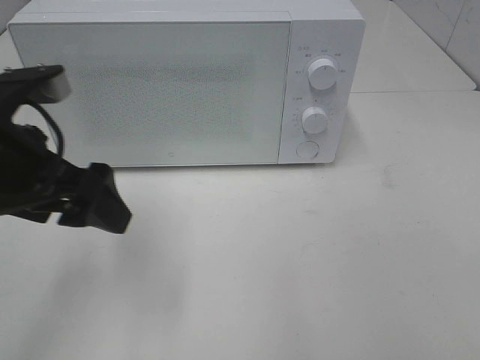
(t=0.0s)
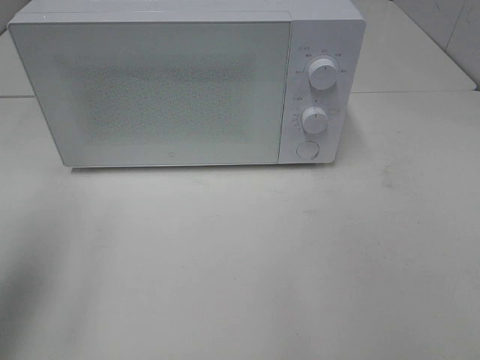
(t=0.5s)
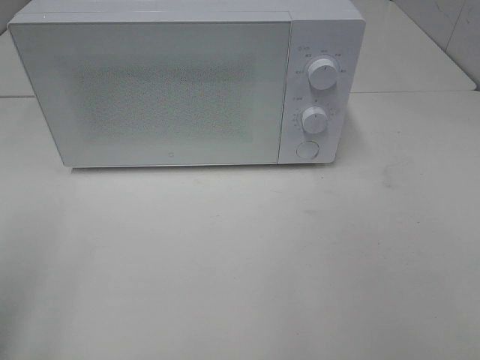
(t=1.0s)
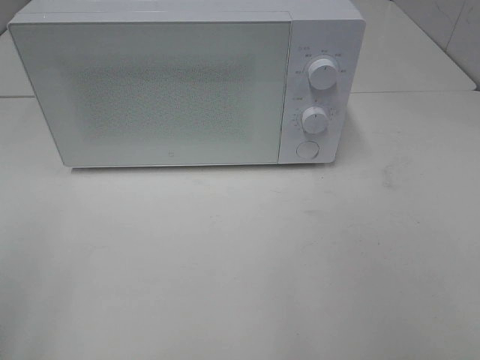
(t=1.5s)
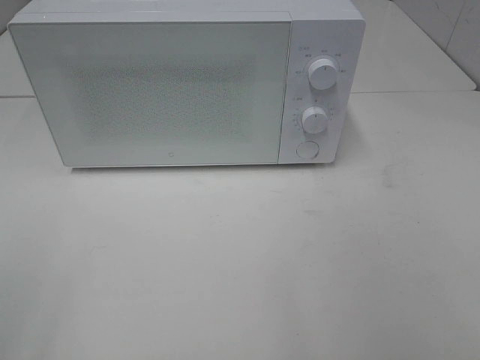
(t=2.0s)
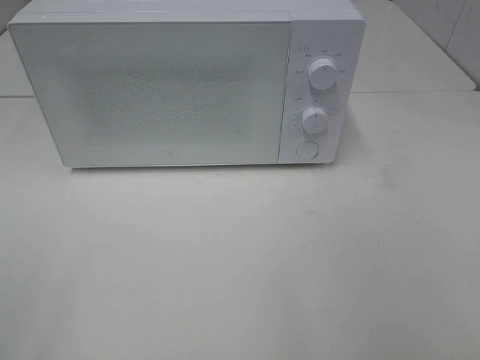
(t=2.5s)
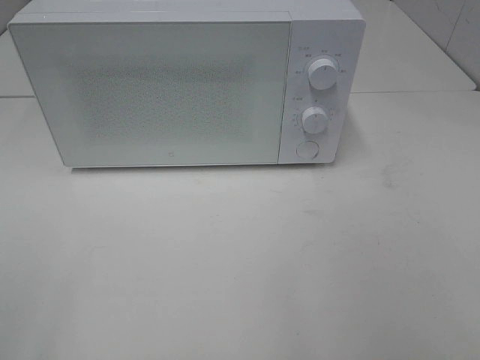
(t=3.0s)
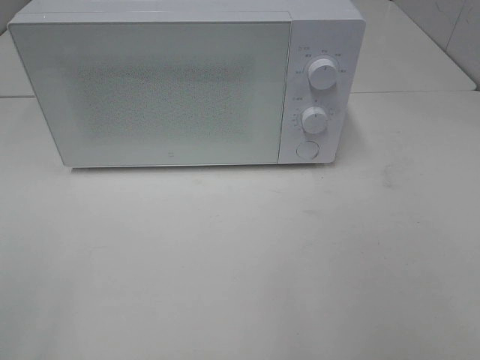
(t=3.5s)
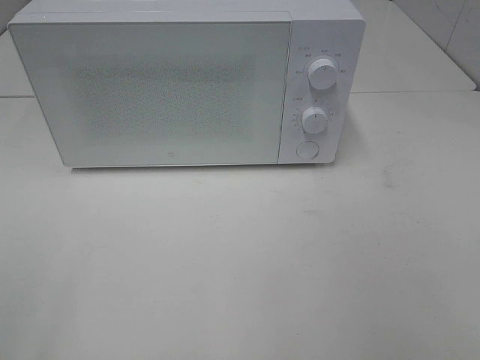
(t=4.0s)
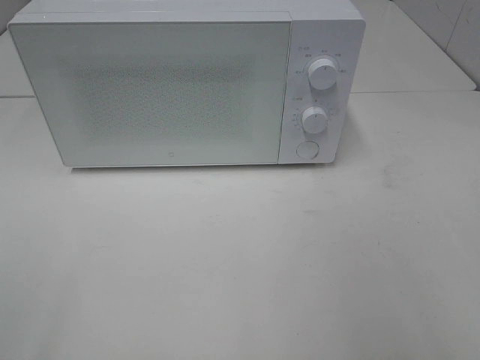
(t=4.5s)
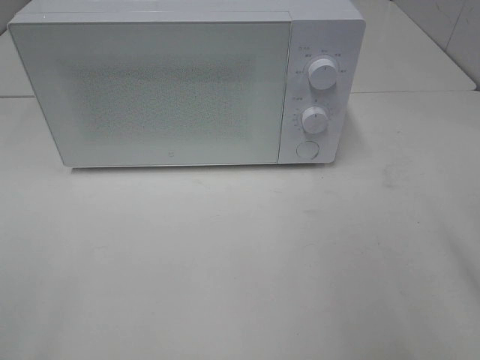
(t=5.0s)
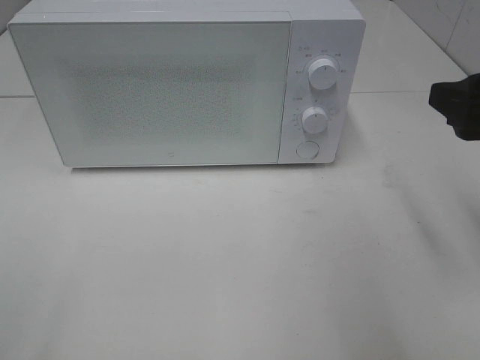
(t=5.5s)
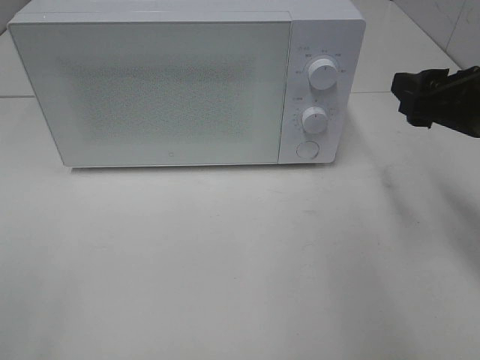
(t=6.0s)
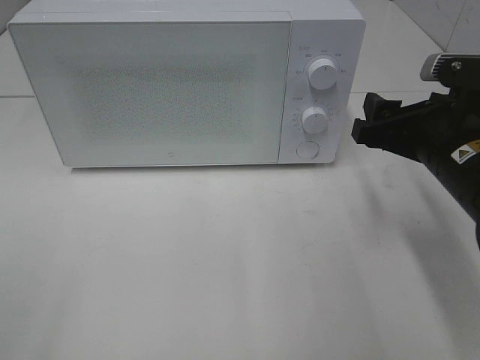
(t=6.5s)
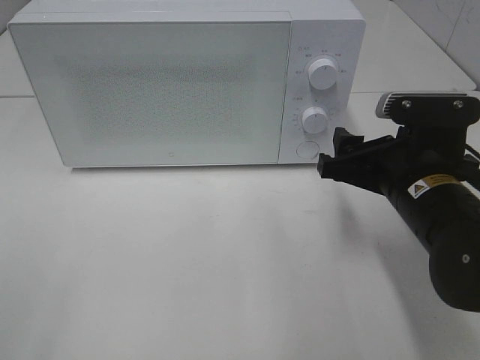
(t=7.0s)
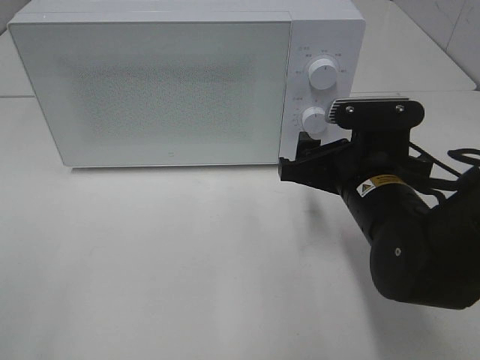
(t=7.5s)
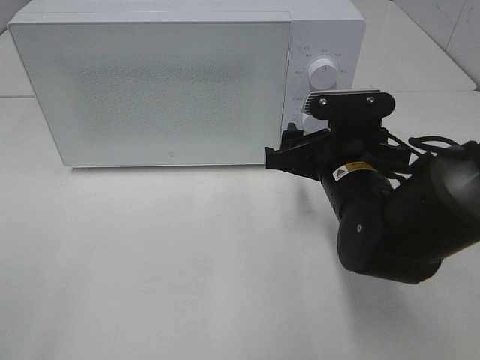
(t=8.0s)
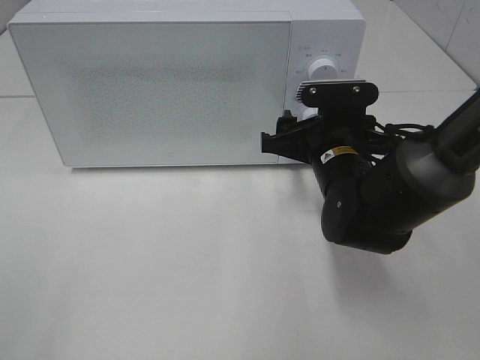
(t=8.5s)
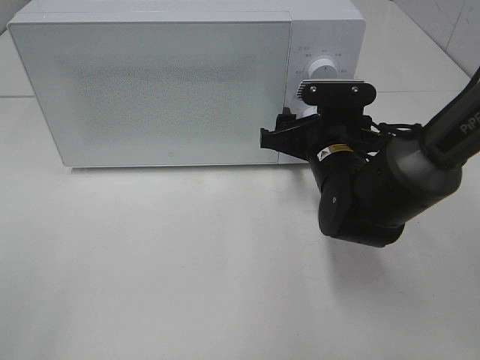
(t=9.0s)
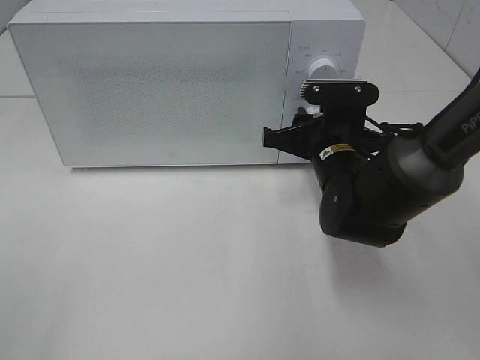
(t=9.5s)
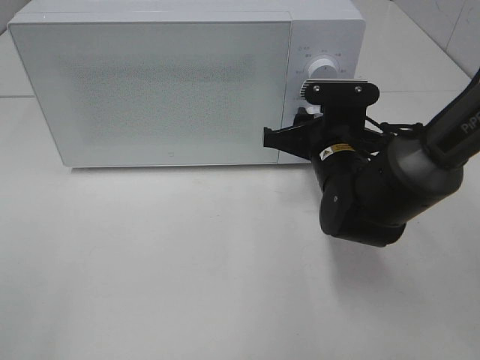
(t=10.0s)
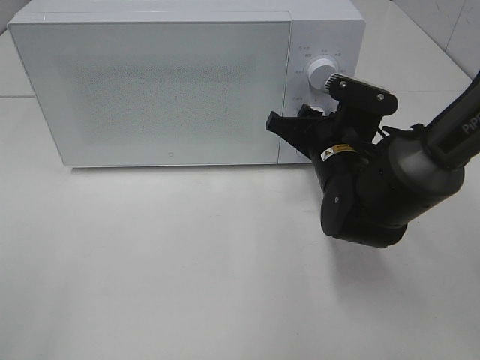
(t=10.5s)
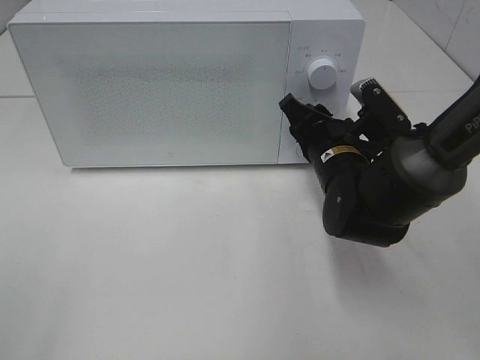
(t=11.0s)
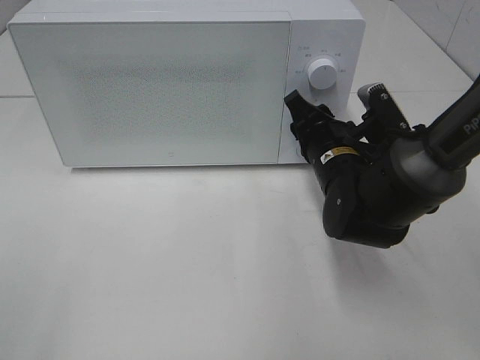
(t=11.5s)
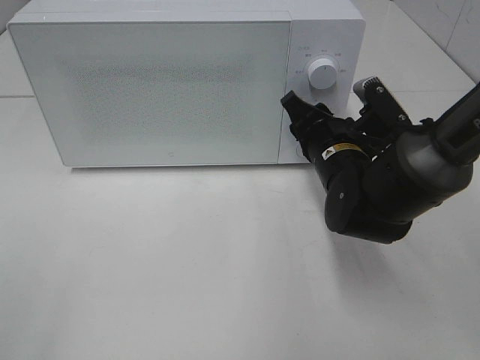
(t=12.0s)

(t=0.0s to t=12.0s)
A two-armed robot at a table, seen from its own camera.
Task of the whole recording: Heat the burger.
t=0.0s - t=2.0s: The left gripper is displaced backward and to the left by about 25 cm.
t=4.0s - t=6.0s: The right gripper shifts some 25 cm forward.
t=6.0s - t=8.0s: The right gripper heads to the left and downward, covering approximately 15 cm.
t=8.0s - t=10.0s: The right gripper ends up approximately 5 cm from where it was, and closes.

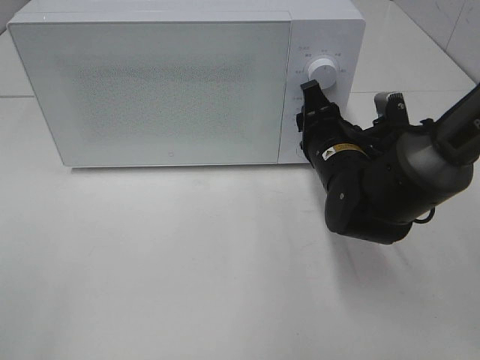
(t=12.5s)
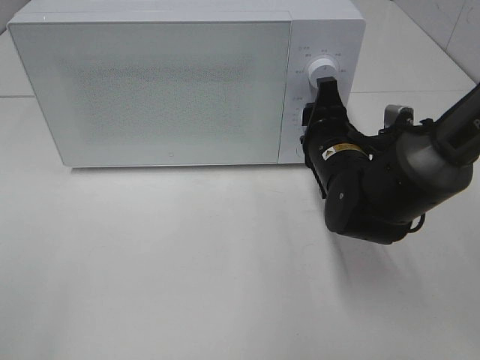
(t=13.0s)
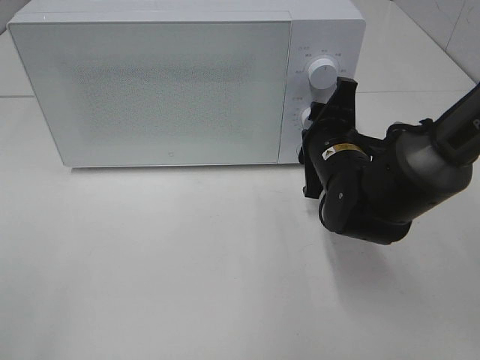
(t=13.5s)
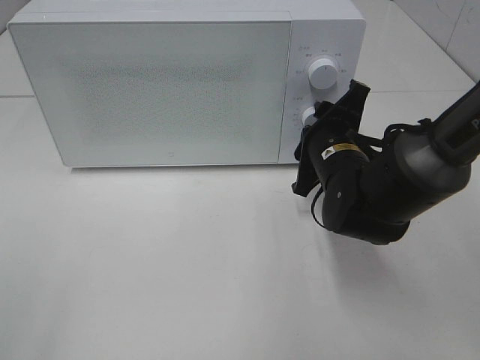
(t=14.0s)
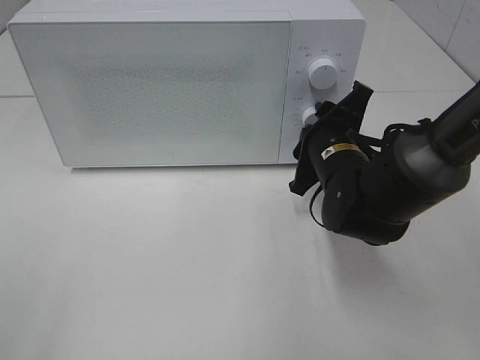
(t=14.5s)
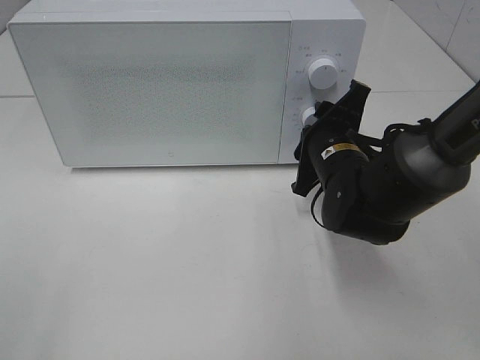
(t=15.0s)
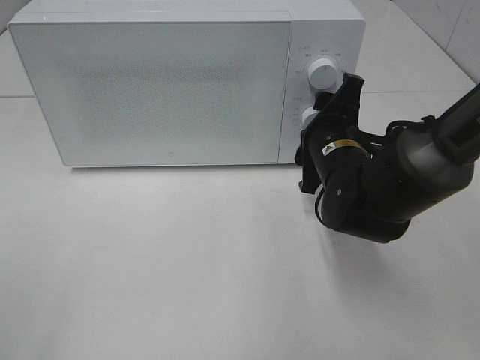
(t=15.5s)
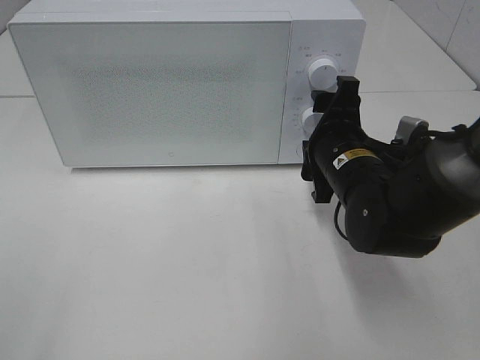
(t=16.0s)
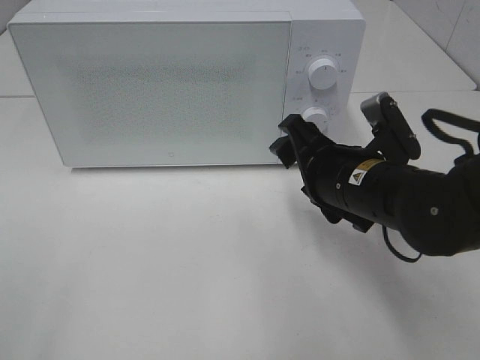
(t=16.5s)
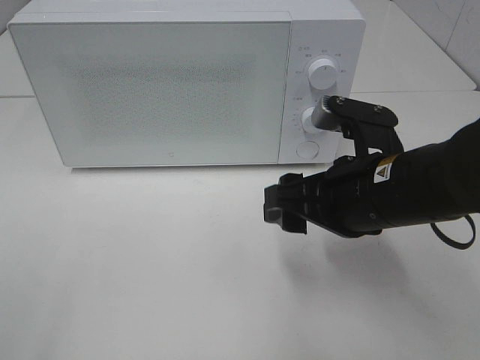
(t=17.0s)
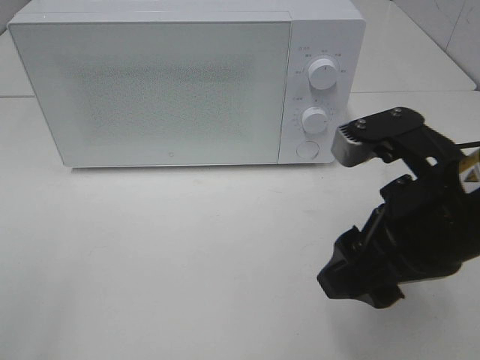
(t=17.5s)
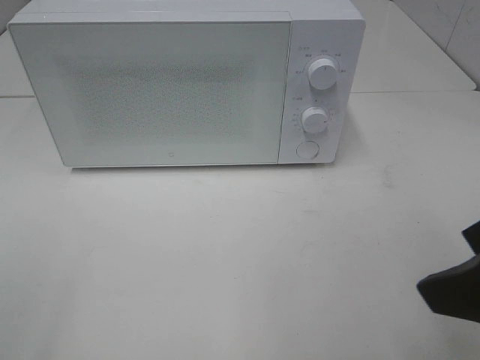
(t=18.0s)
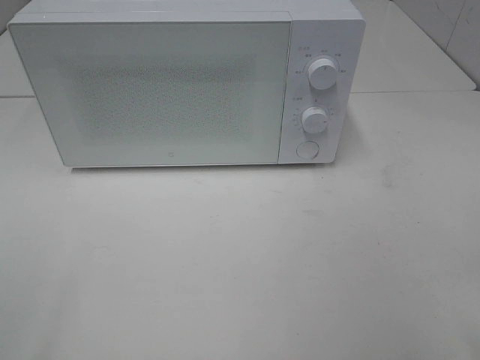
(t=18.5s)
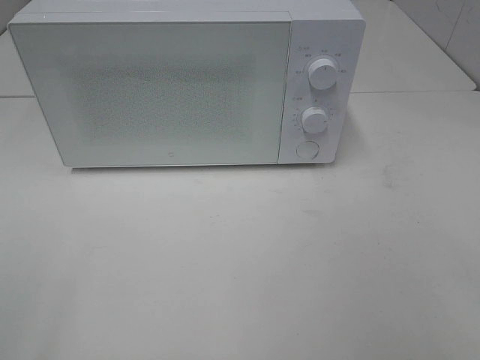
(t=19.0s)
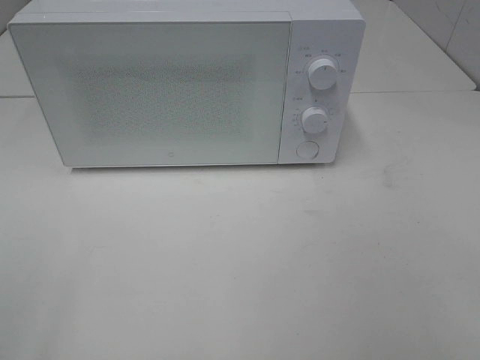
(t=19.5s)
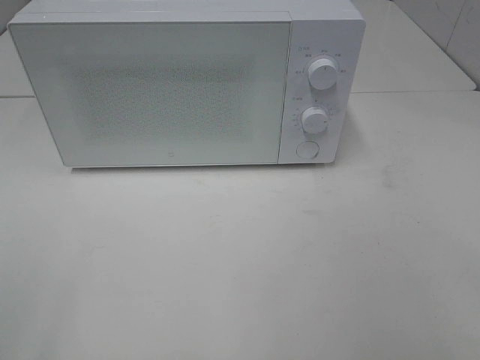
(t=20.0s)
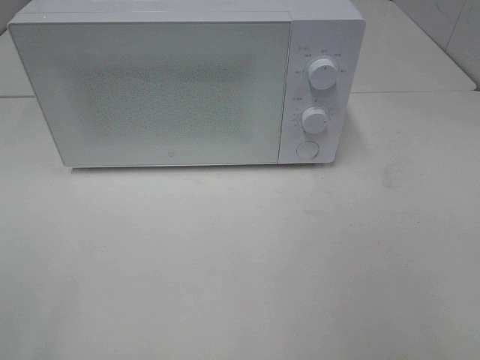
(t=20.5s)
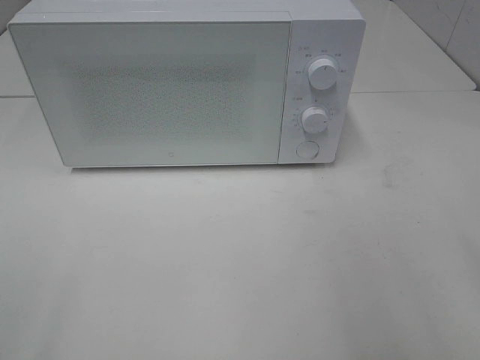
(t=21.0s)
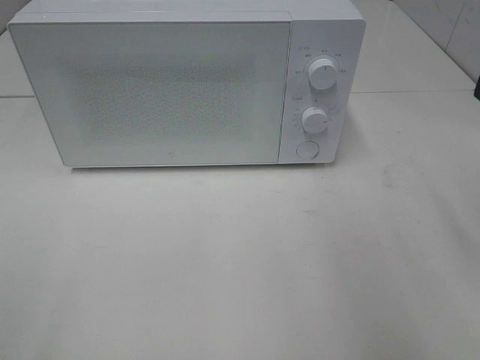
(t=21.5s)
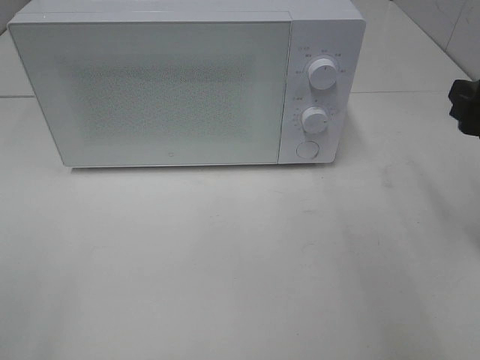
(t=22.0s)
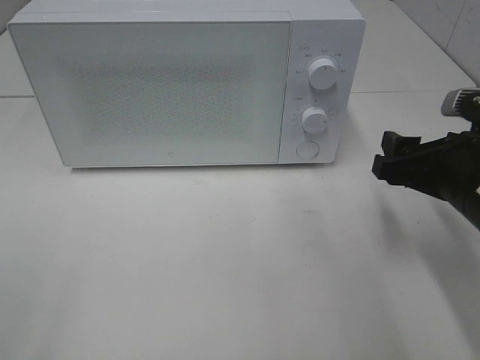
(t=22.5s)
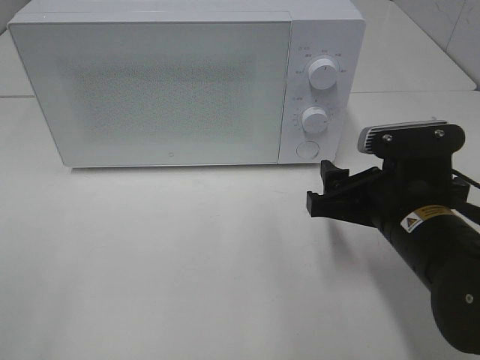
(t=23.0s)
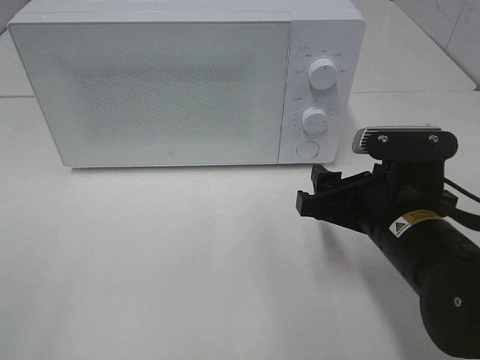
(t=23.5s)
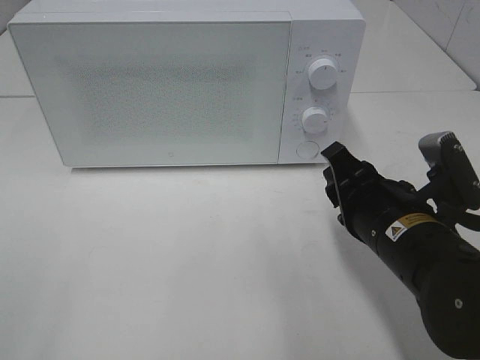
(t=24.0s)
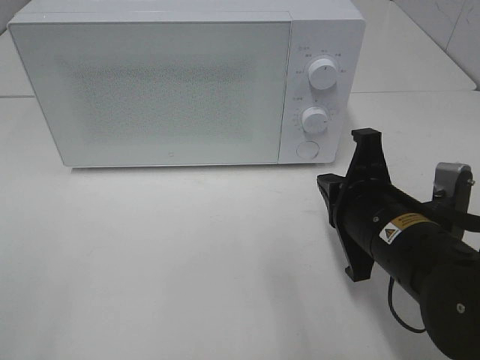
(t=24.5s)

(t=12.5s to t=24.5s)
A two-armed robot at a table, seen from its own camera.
Task of the whole recording: Heat the burger.
Step, t=12.5s - t=15.5s: Right hand: twist timer button.
t=14.5s - t=16.5s: The right gripper goes approximately 5 cm backward, and opens its fingers.
t=16.5s - t=18.5s: The right gripper heads backward, to the right and upward, covering roughly 30 cm.
t=20.5s - t=22.5s: The right gripper shifts some 25 cm forward and downward.
t=22.5s - t=24.5s: The right gripper is displaced to the left by some 10 cm, and closes its fingers.

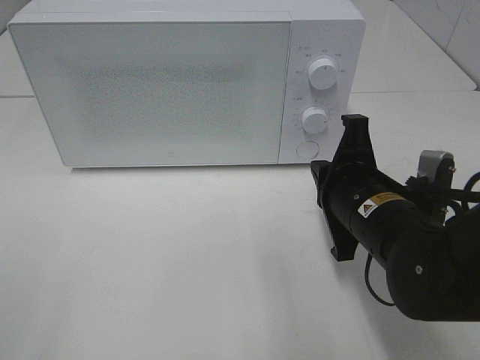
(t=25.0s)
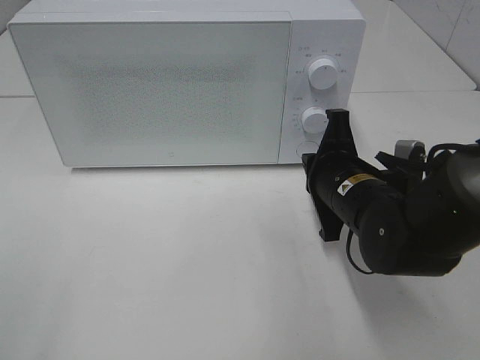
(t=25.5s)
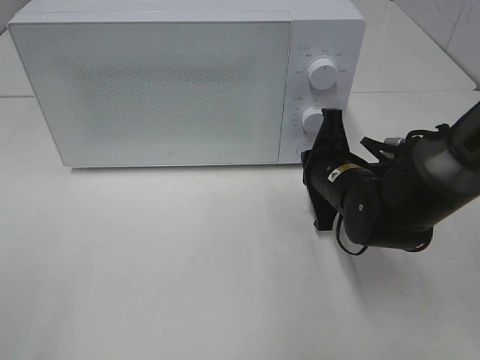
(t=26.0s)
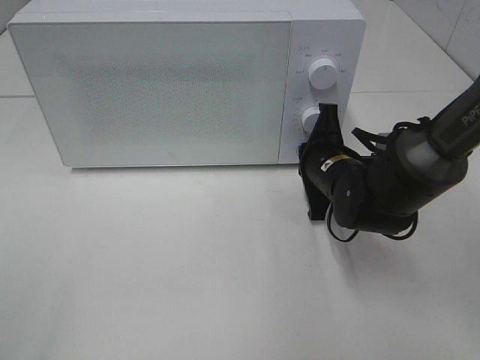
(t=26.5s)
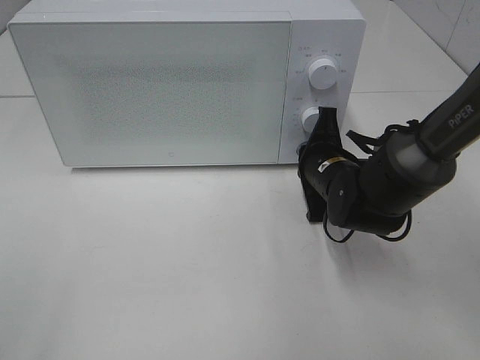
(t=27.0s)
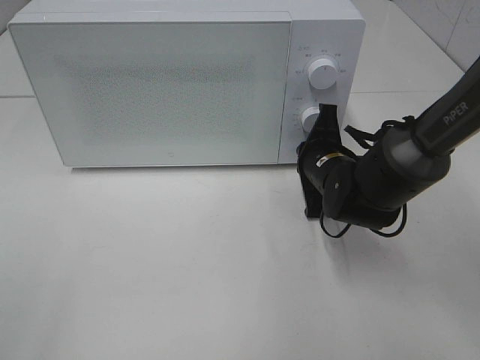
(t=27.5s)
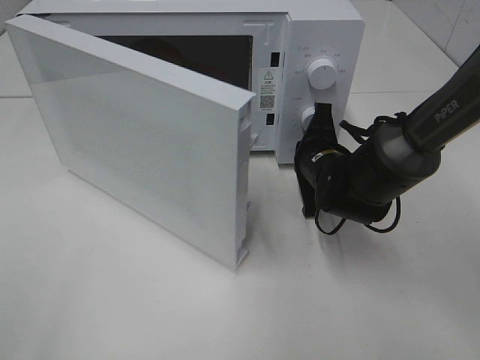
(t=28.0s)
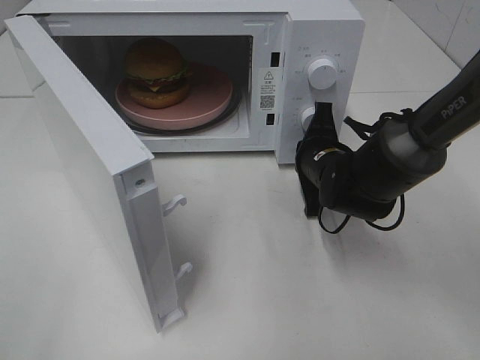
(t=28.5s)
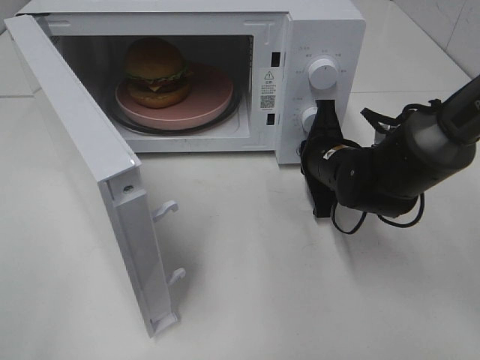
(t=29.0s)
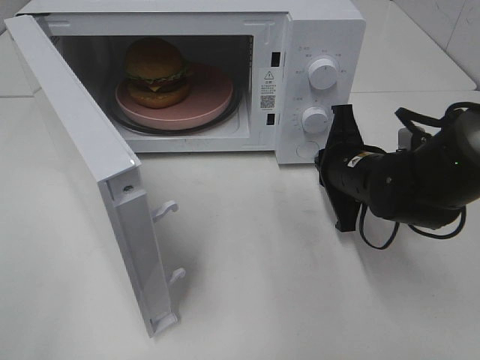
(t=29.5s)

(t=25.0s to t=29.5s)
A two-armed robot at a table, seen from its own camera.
Task of the whole recording: Heat the burger.
t=25.0s - t=27.0s: The right gripper heads forward and downward, covering about 10 cm.
t=27.0s - t=29.5s: The right gripper ends up about 5 cm from where it was.
